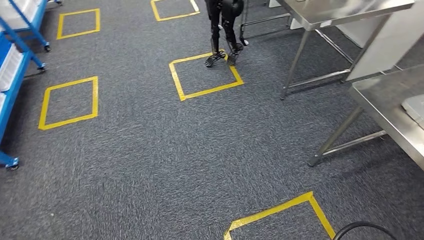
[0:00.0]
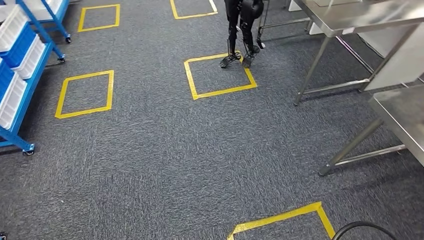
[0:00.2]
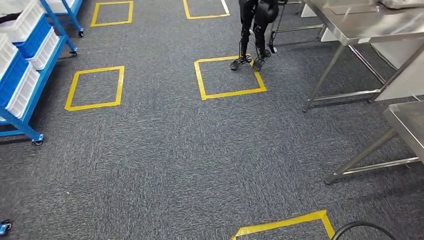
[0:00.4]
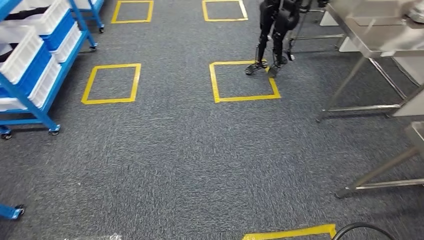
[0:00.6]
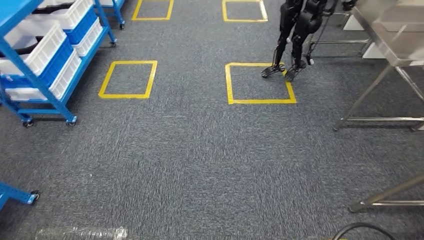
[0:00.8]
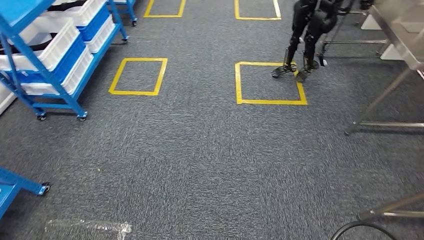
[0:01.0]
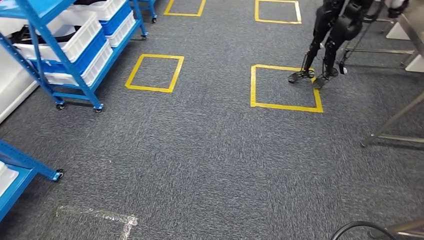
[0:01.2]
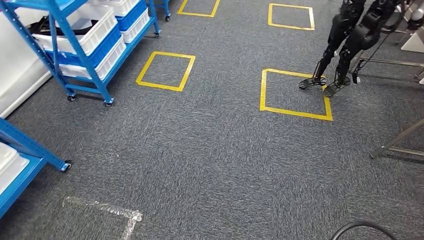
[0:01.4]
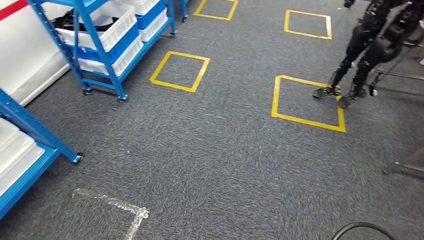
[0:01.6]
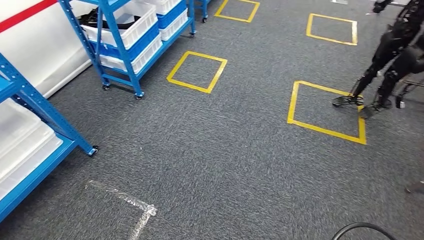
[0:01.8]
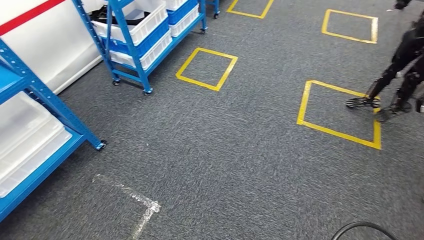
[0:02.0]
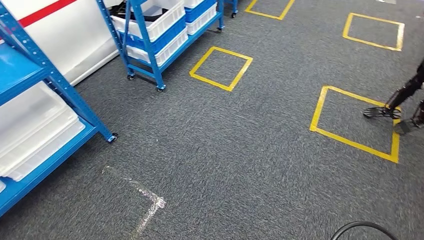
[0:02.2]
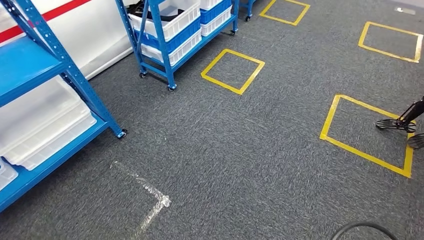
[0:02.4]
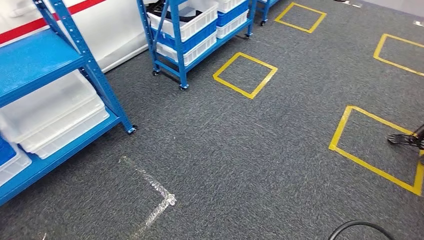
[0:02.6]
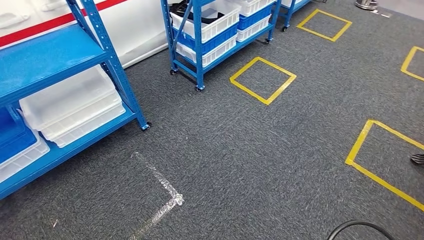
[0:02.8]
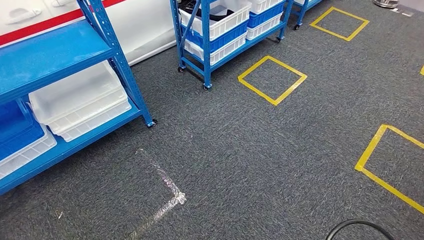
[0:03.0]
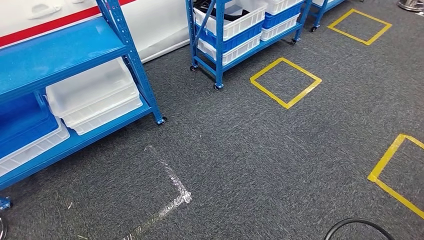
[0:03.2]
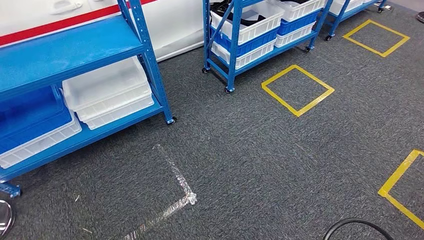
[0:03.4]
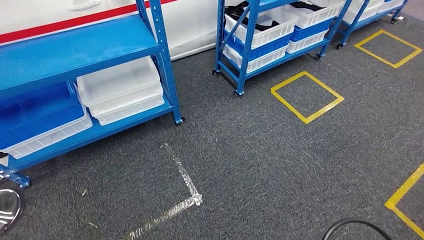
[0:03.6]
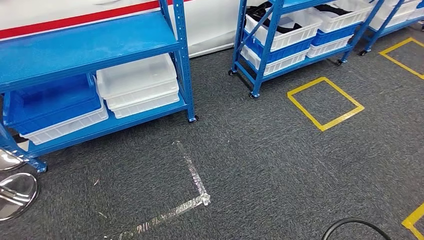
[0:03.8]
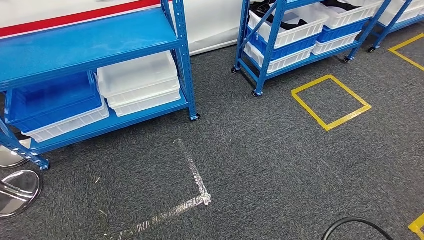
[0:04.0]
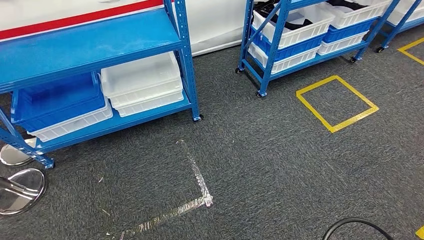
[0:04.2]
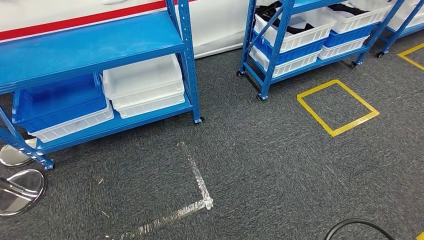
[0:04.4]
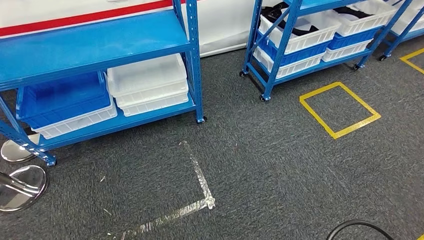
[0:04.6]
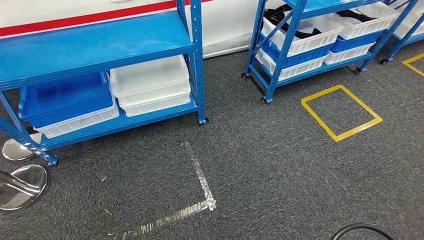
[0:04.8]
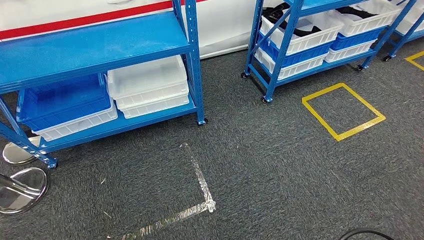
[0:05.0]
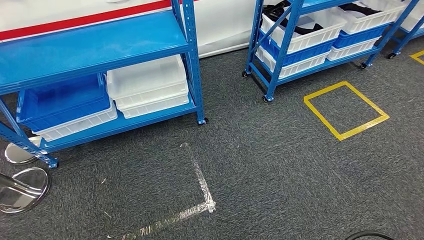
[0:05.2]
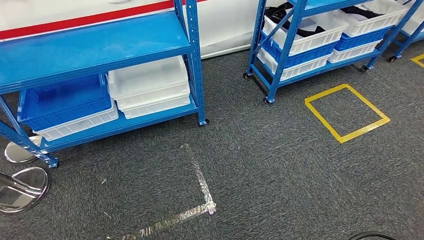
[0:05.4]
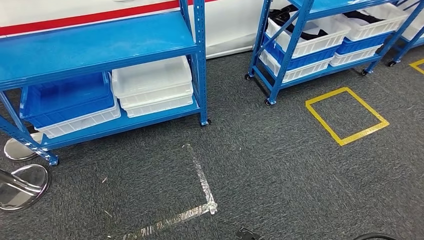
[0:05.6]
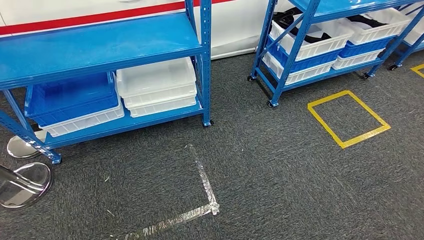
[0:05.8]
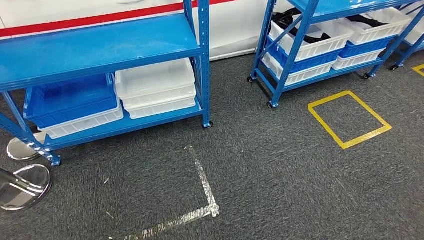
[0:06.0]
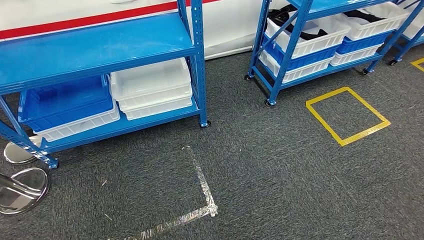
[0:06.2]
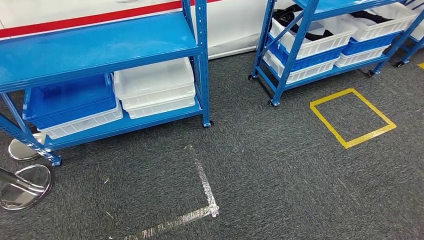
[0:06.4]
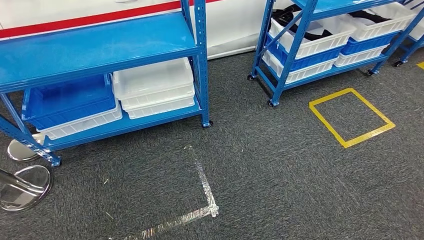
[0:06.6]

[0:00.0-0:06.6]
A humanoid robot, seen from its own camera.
Step, 0:00.0 to 0:06.6: Return to the initial position at the shelf.
